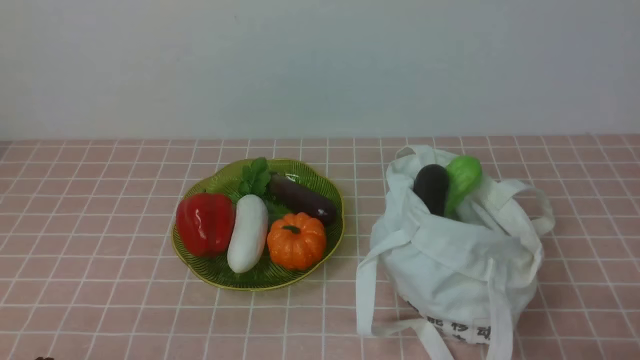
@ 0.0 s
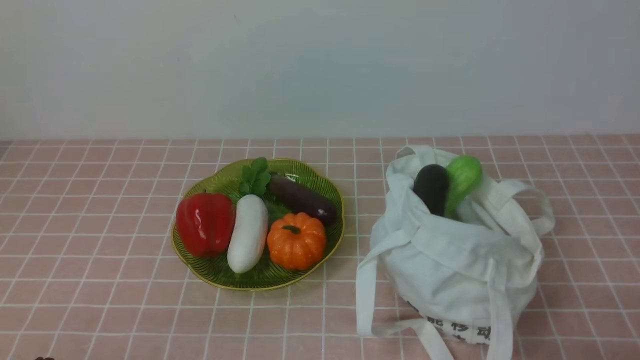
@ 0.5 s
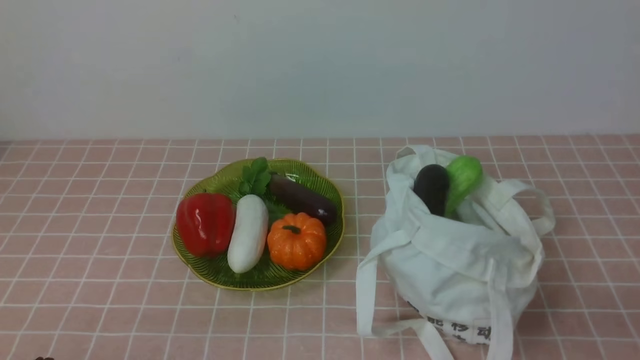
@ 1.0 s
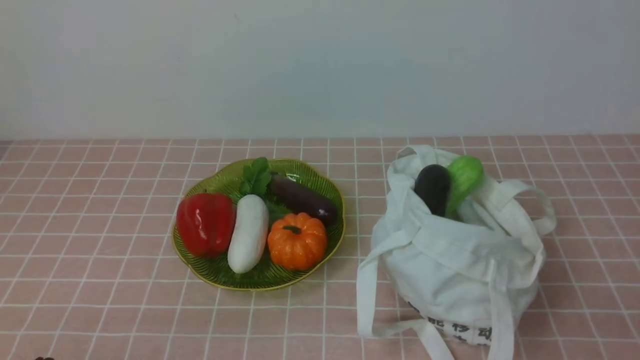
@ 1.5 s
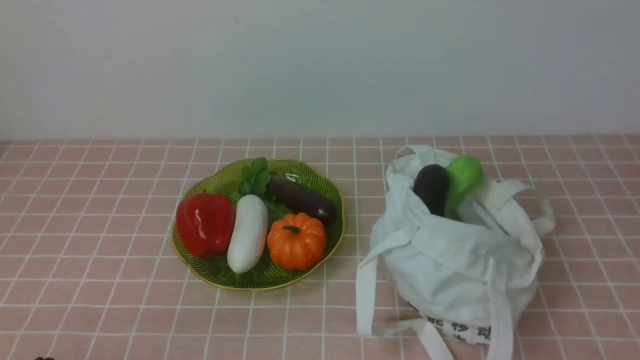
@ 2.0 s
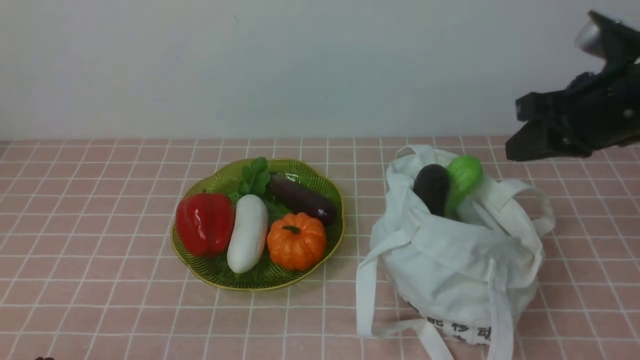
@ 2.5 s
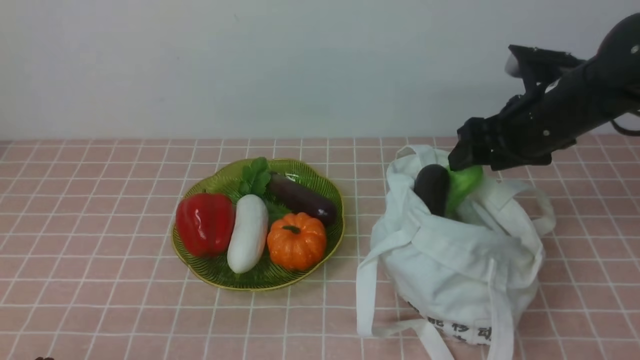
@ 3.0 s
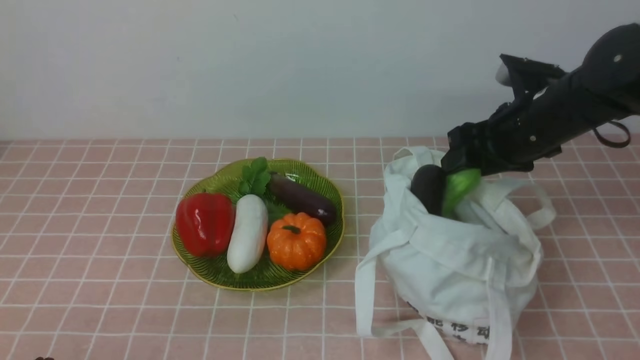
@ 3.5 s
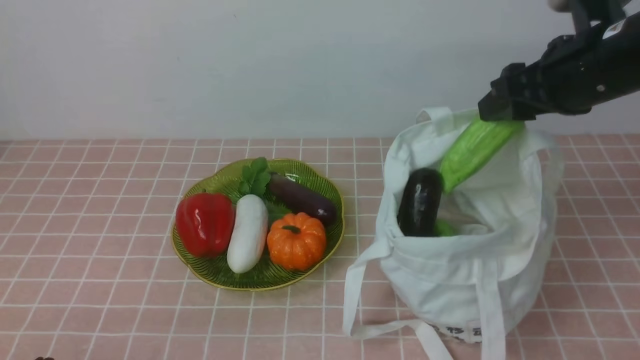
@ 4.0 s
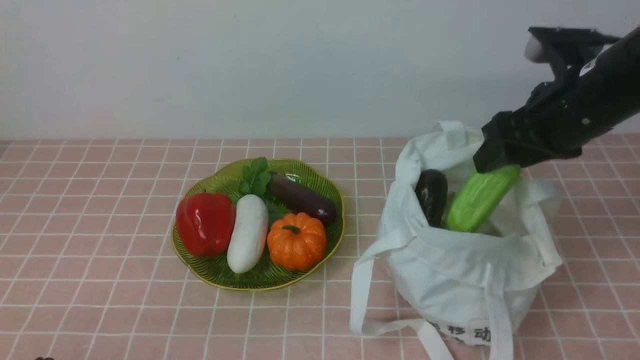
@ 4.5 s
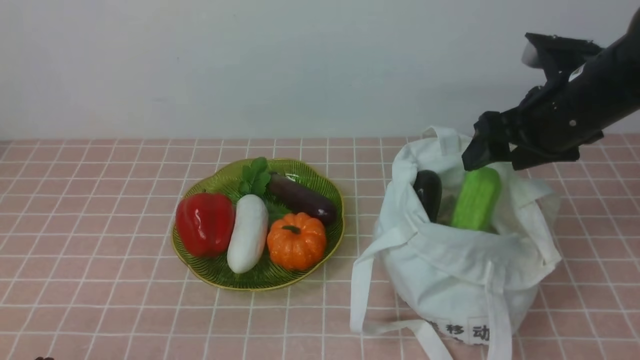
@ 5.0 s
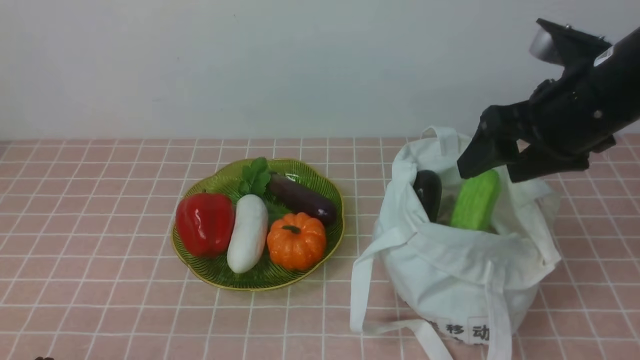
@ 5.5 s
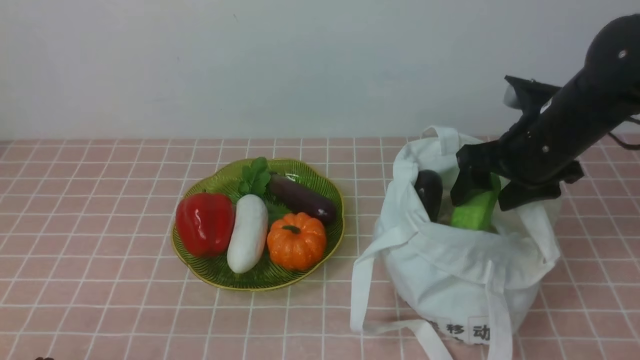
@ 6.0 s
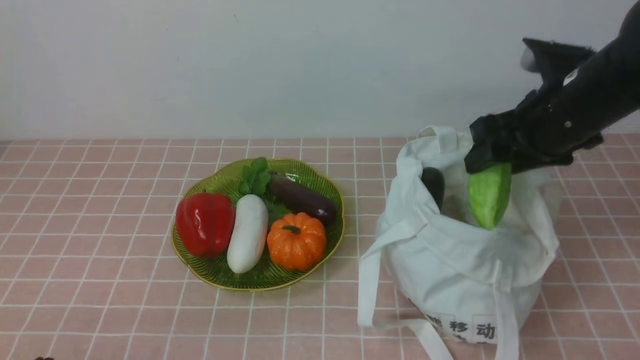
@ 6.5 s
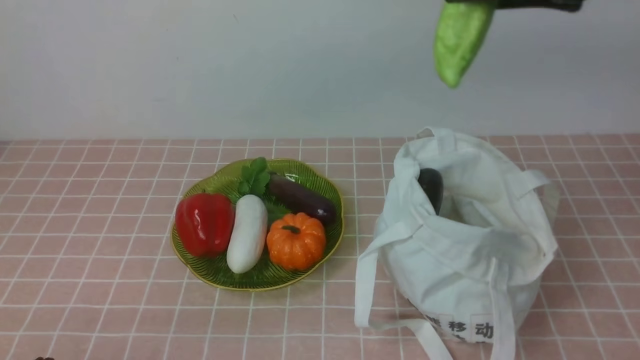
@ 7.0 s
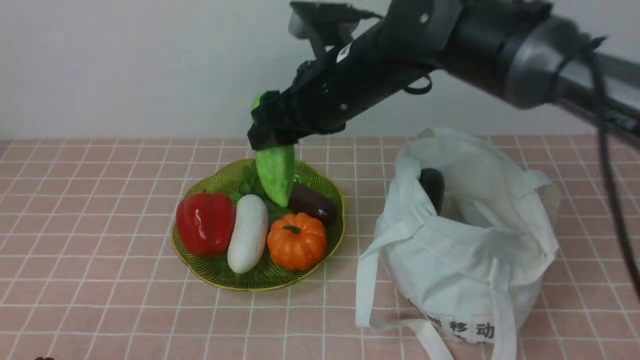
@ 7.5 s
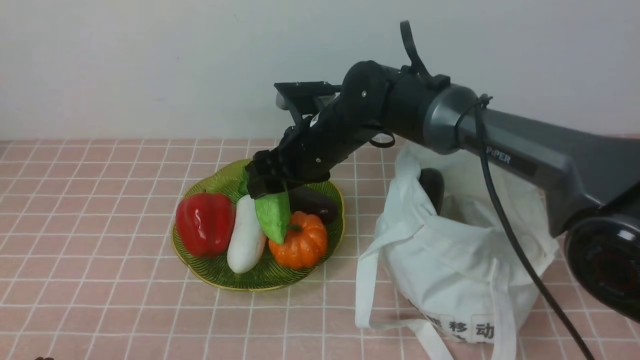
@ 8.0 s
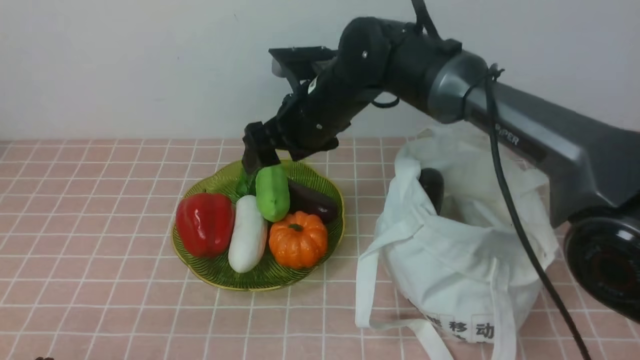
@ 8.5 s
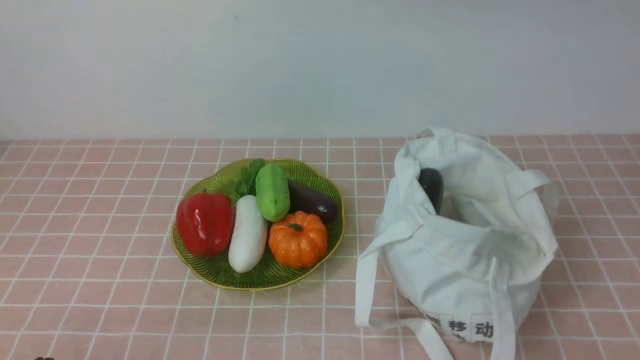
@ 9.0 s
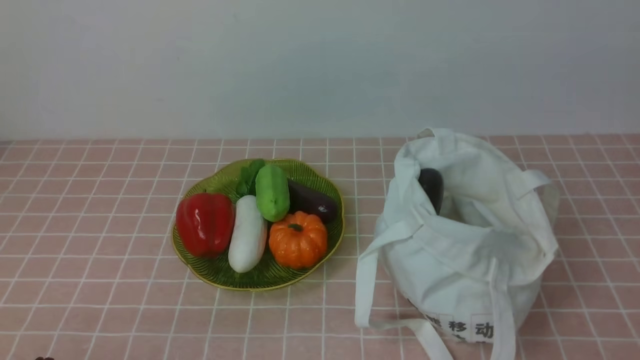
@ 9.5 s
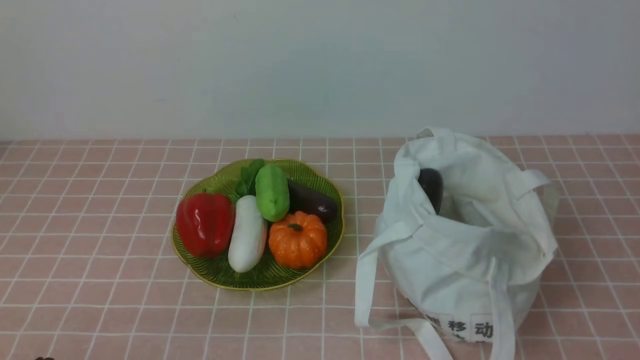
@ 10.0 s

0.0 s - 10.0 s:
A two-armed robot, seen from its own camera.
Task of the whole recording: take vegetables from bag on pink coffee tablecloth place on plate.
Step, 0.0 s - 6.0 s: Grasp the bitter melon with right gripper.
Step, 6.5 s - 8.5 s: Place the bitter melon on the plate with right gripper.
2.0 s - 4.0 s: The right gripper travels forward by roughly 20 cm, and opens its fingers.
4.0 s - 6.0 s: The right gripper heads downward, covering approximately 10 cm.
6.0 s - 8.0 s: The right gripper shifts approximately 20 cm to the left.
8.0 s - 10.0 s: The right gripper is displaced backward, to the right and upward by some 50 cm, and closes up.

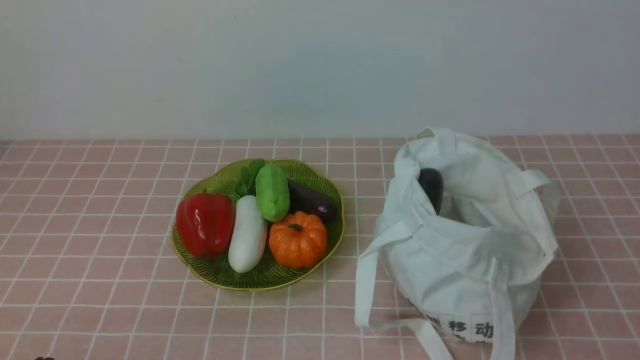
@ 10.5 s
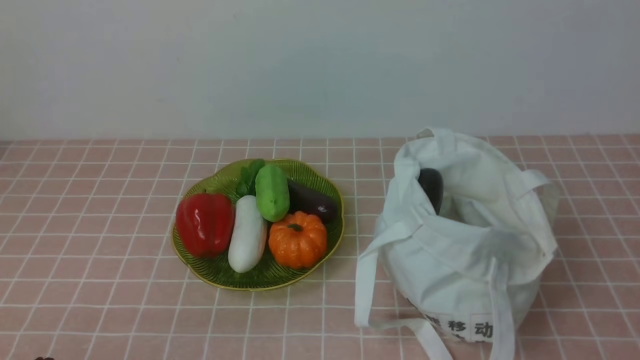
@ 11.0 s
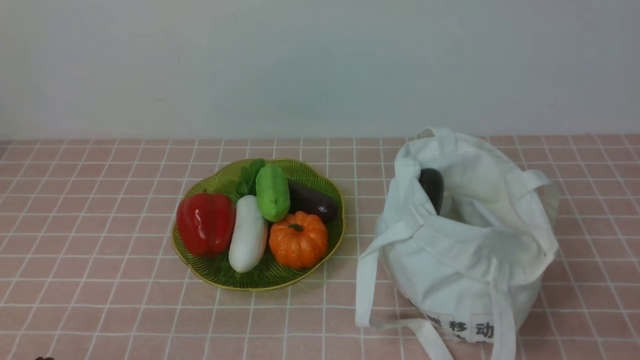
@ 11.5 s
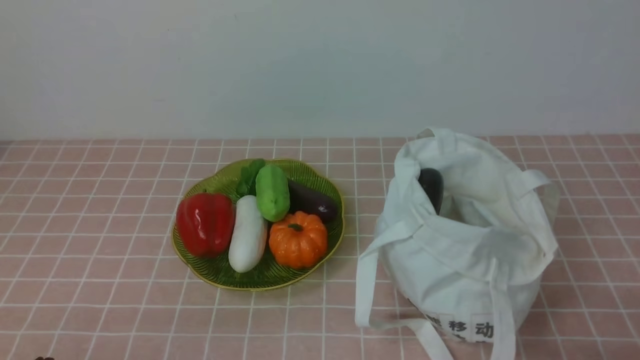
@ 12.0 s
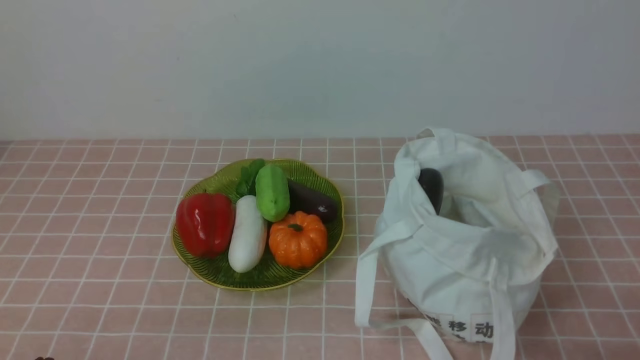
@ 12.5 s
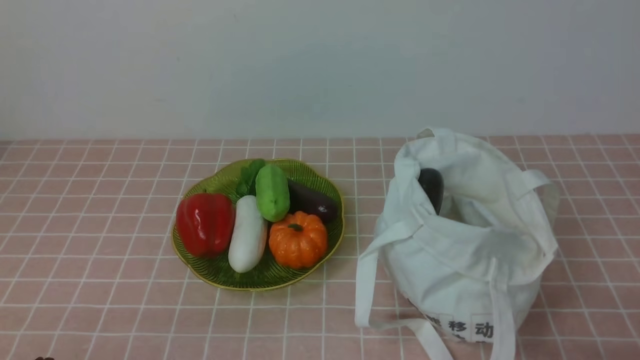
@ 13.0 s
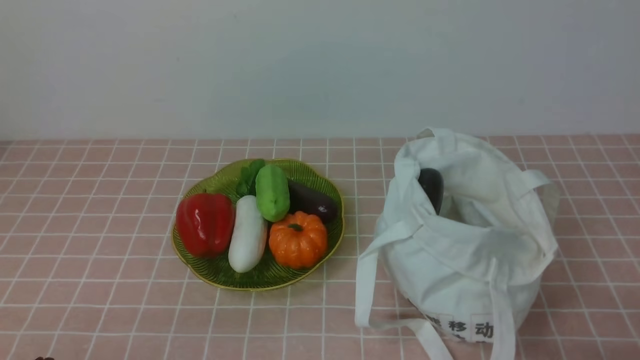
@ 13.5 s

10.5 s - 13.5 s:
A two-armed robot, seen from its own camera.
Task of the whole recording: take vegetables from bag on pink coffee tablecloth place on plate.
12.0 s - 13.5 s: Both grippers stay about where they are.
